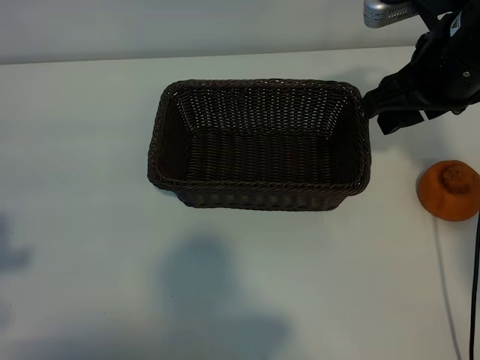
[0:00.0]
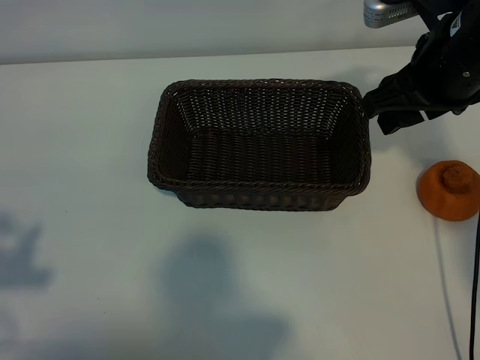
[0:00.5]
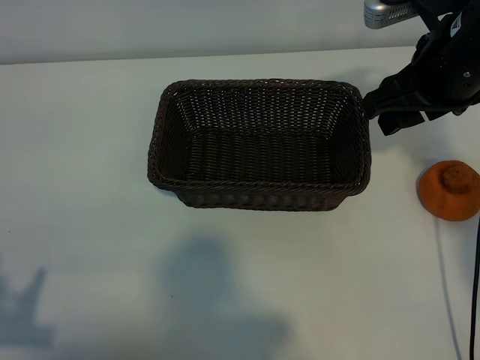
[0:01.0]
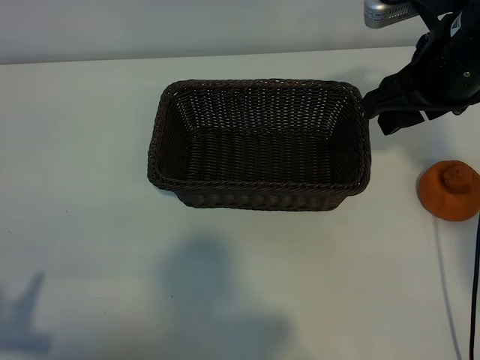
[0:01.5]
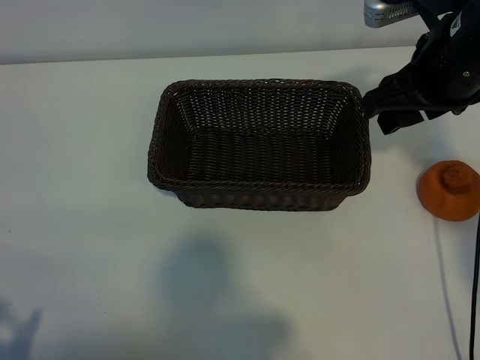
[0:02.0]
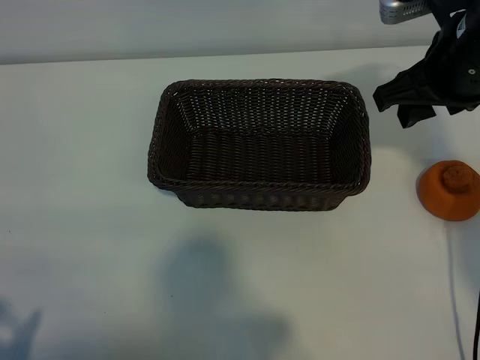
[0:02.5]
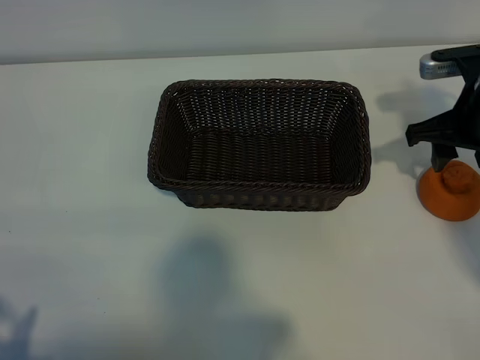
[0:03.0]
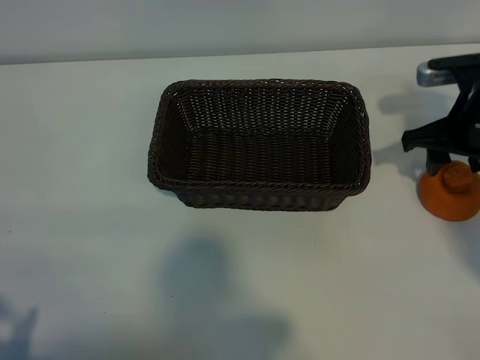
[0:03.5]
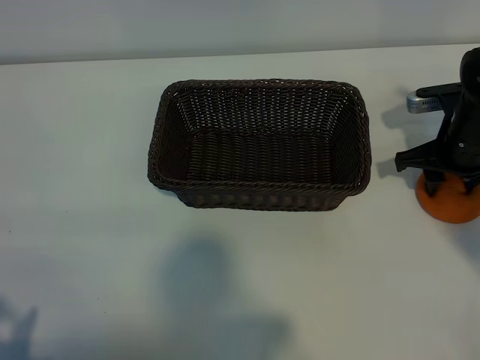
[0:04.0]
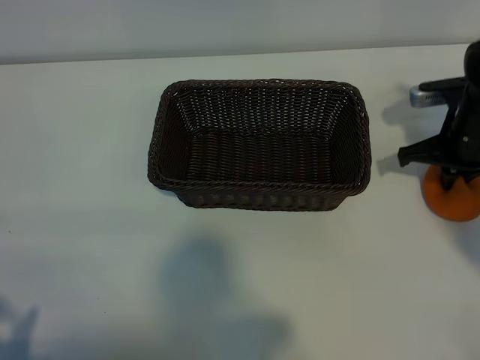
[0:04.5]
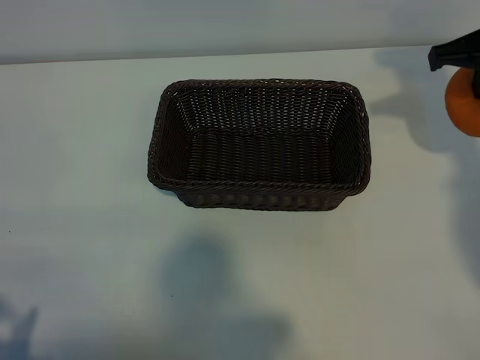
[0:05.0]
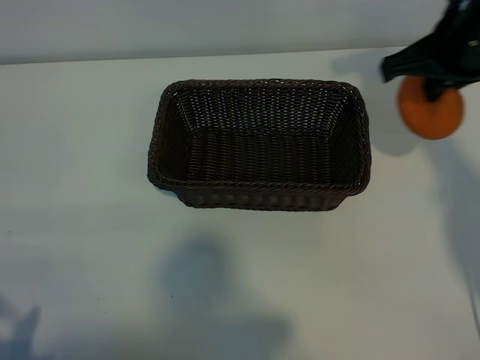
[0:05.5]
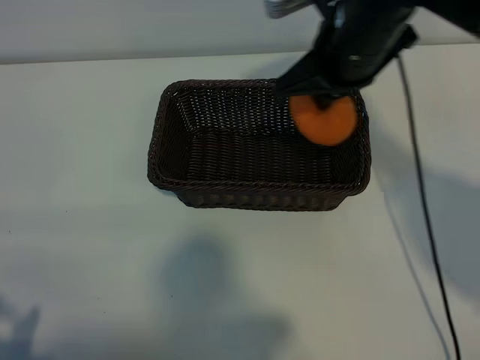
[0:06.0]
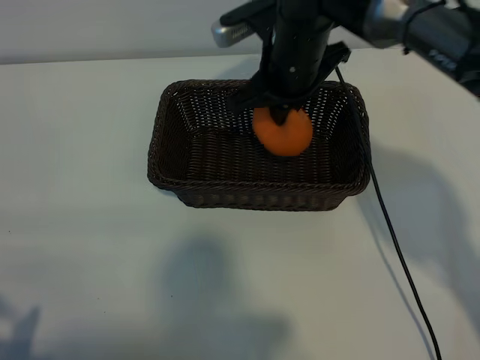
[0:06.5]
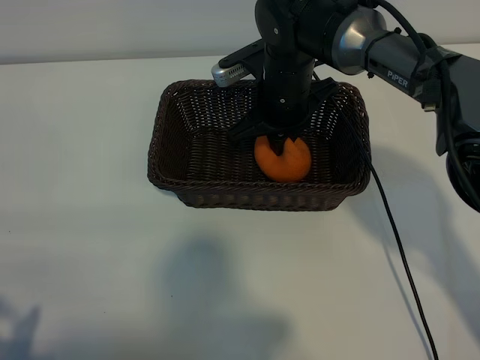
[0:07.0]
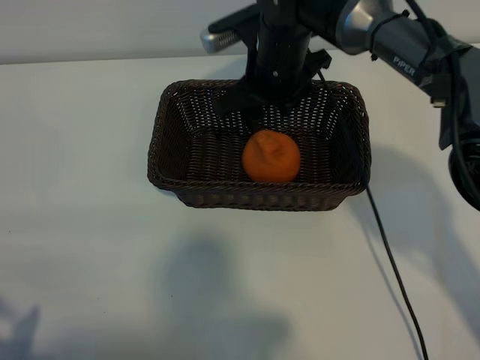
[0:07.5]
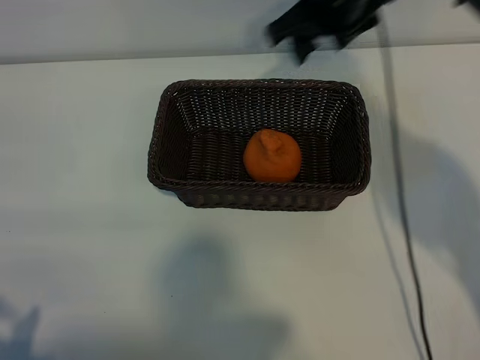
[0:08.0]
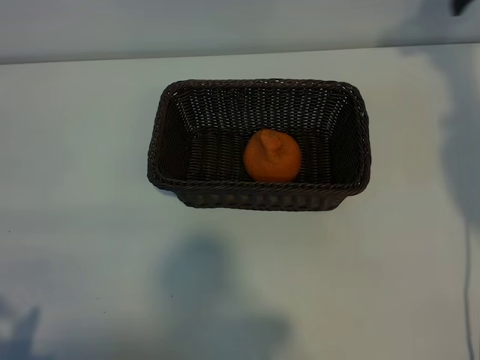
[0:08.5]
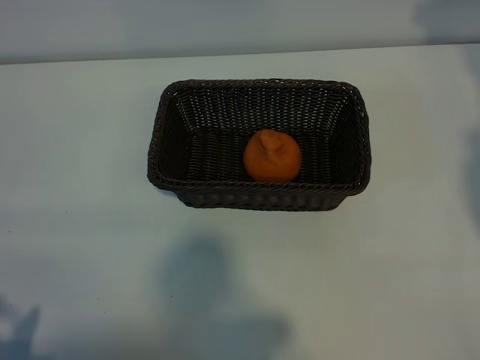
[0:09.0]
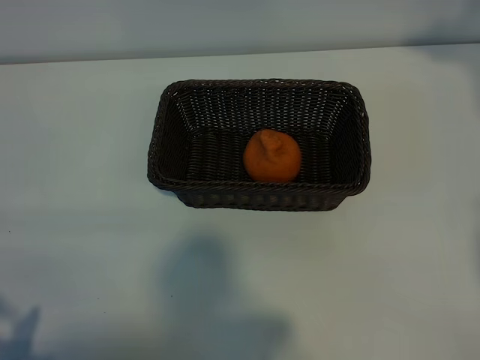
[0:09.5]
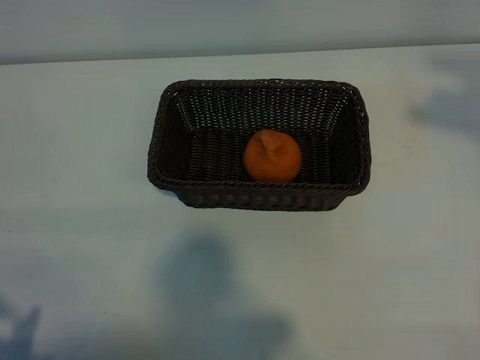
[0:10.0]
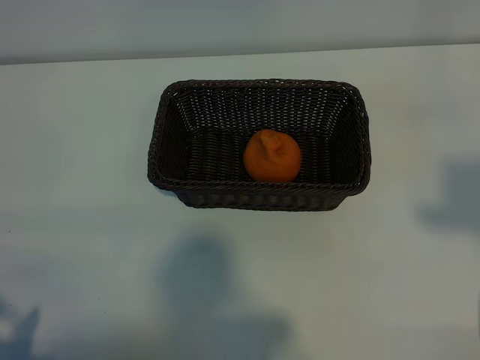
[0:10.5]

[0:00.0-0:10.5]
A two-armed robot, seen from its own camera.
Task of the whole recording: pick up the orange and put it into the basket.
Step, 0:00.0 to 0:04.0: Grasp the orange with right gripper.
Step, 0:04.5 to 0:07.0: Place the orange in the basket with right gripper.
